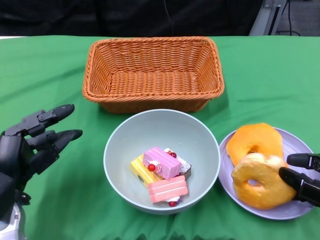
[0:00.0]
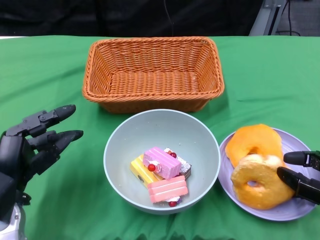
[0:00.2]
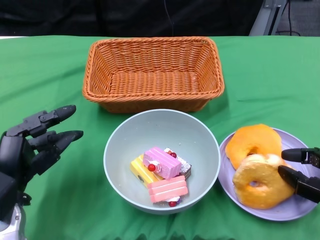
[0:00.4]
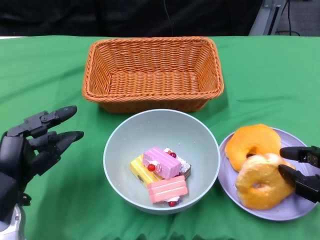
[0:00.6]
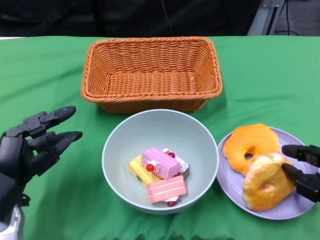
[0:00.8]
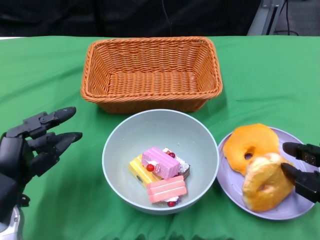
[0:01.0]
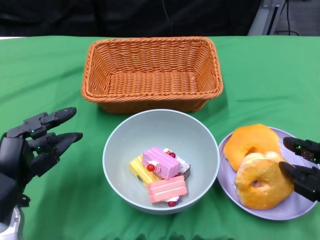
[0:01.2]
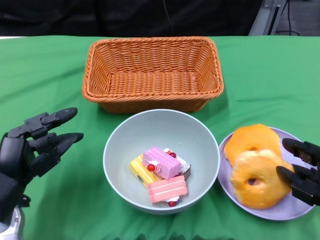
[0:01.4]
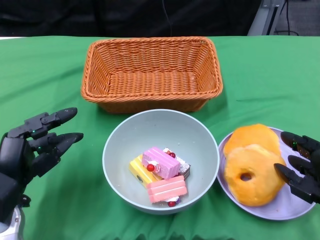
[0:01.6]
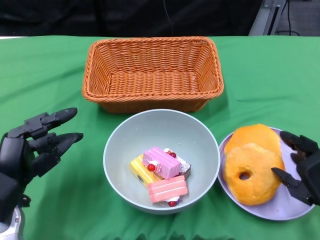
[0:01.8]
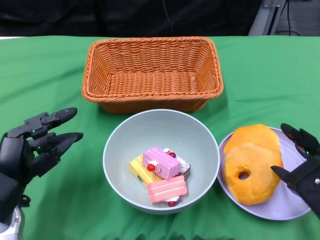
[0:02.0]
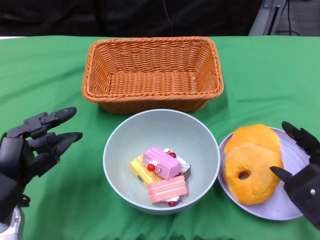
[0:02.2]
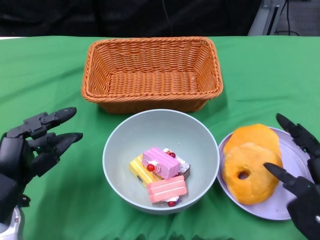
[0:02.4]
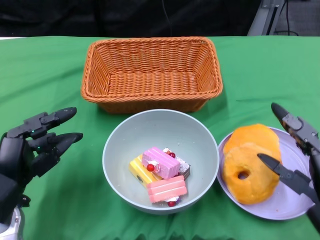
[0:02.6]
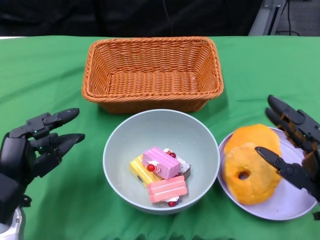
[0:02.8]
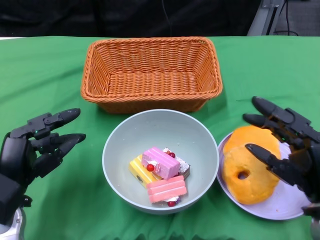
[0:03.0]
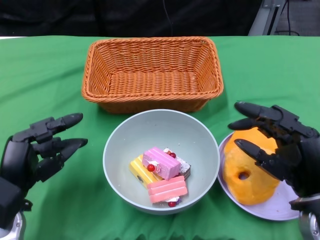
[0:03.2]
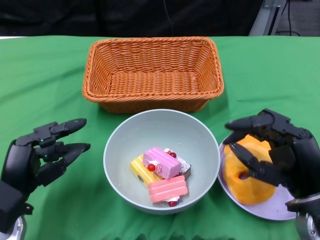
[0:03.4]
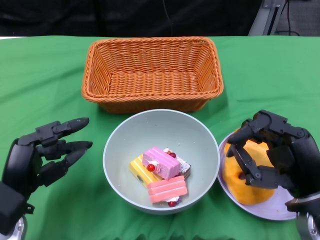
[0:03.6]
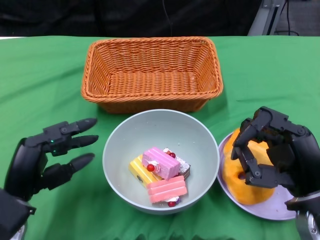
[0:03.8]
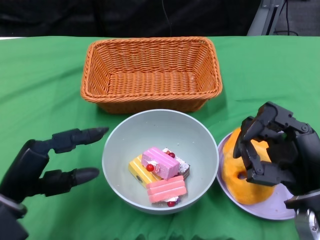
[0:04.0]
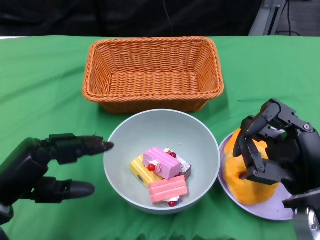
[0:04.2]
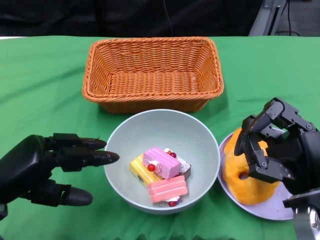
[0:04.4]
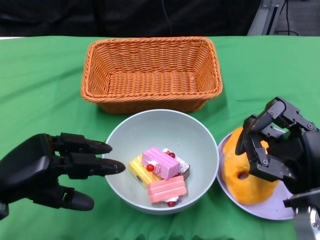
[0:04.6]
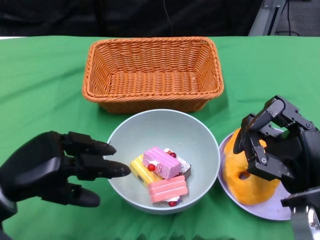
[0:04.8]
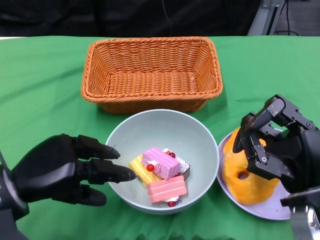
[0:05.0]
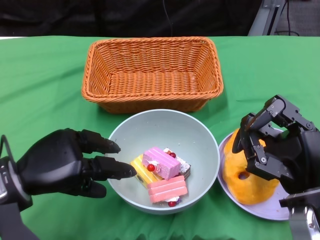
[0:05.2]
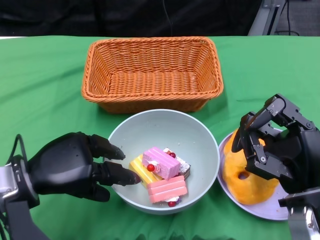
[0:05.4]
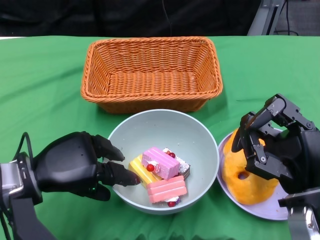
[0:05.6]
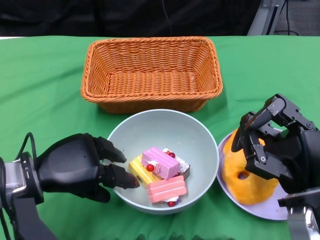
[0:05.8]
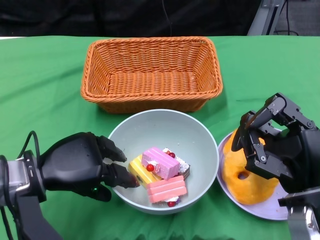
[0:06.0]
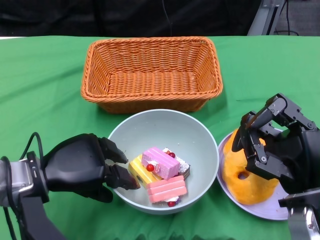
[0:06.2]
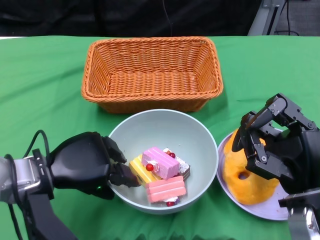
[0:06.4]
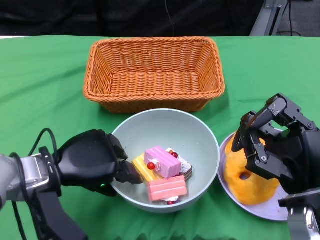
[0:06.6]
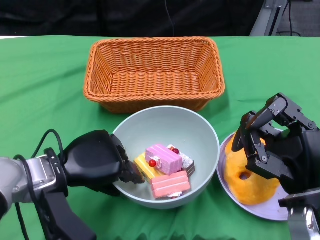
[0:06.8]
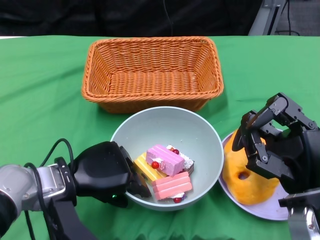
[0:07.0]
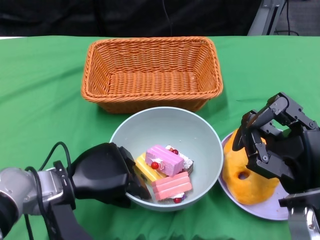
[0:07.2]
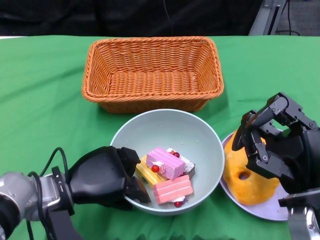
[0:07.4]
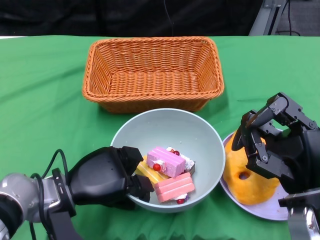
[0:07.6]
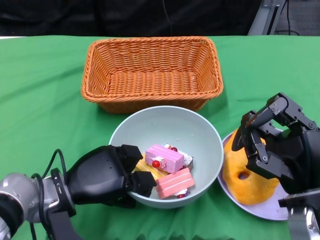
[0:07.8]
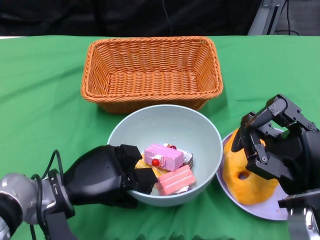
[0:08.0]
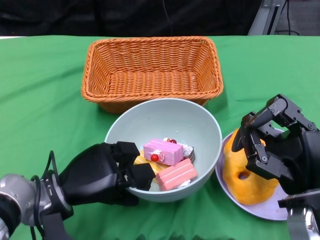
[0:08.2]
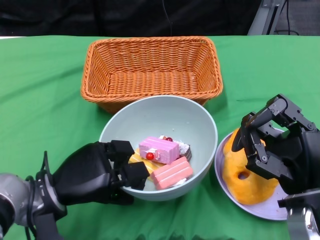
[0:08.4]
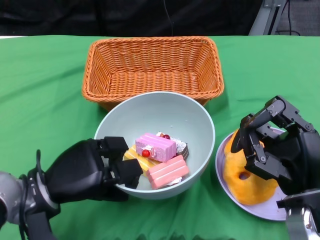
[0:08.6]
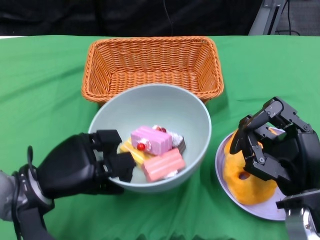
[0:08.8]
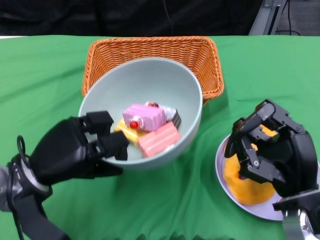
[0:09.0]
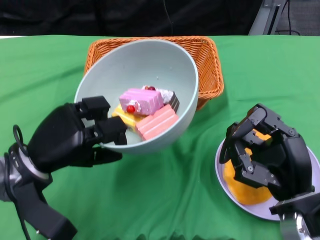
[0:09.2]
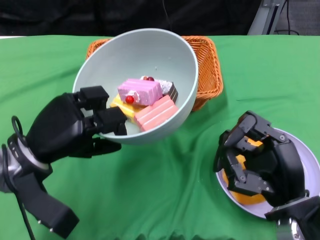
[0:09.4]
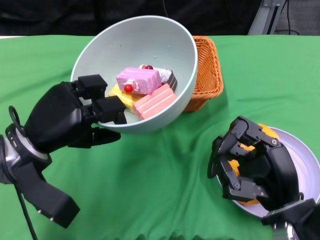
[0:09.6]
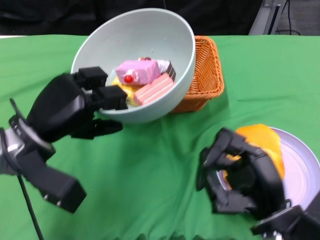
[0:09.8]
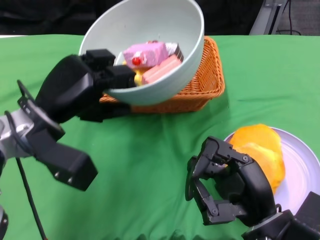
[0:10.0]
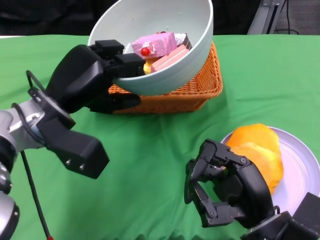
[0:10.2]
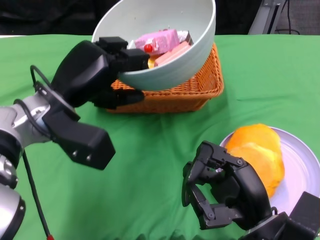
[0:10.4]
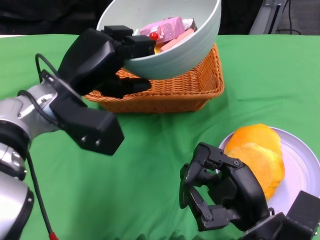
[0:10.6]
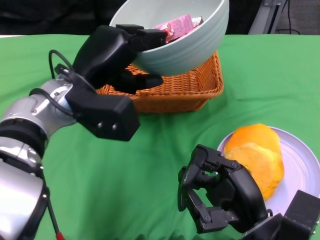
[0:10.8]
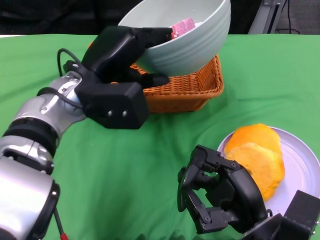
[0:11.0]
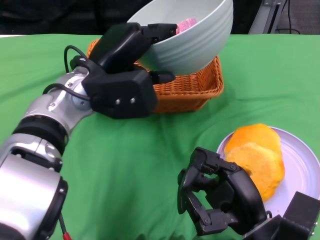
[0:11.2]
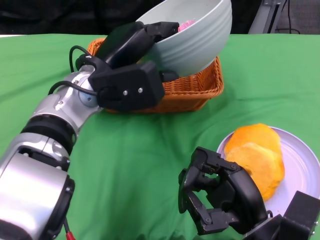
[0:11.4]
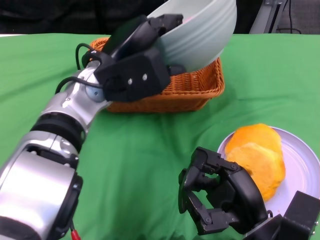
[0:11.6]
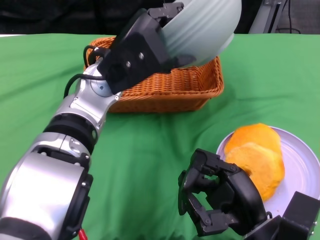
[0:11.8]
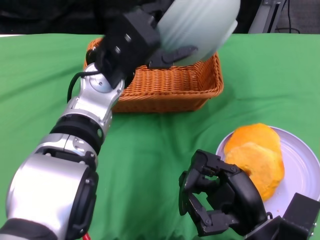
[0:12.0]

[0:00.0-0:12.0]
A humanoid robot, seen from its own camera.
Step, 0:00.0 to 0:02.2: Pick up the bread with the right gripper and place it on the plate.
Step, 0:02.4 to 0:07.4: Grasp the bowl with the left gripper.
0:03.0 to 0:04.4: The left hand ends up about 5 cm from where it was.
0:04.4 to 0:06.0: The left hand moves to the right, approximately 5 cm.
0:06.0 to 0:07.6: The left hand shifts by some 5 cm.
0:09.0 to 0:10.4: The right hand shifts by approximately 5 cm, while the left hand travels upward and forward by some 10 cm.
0:10.4 to 0:12.0: The left hand is displaced to the right by approximately 10 cm.

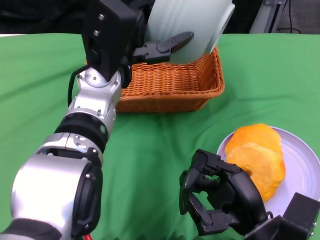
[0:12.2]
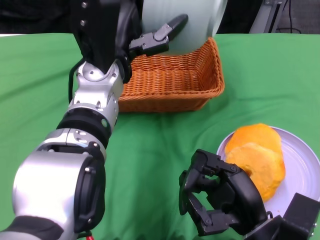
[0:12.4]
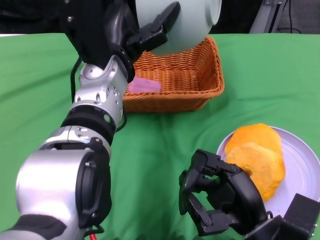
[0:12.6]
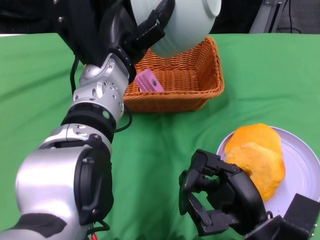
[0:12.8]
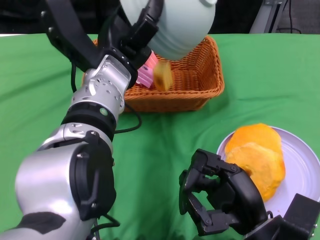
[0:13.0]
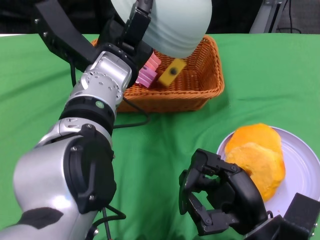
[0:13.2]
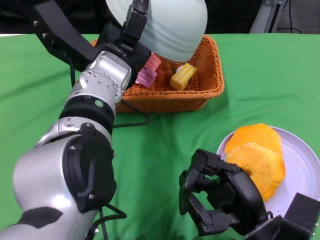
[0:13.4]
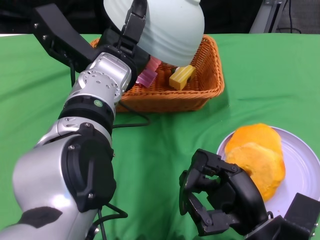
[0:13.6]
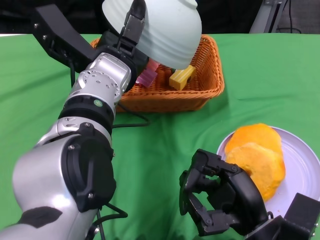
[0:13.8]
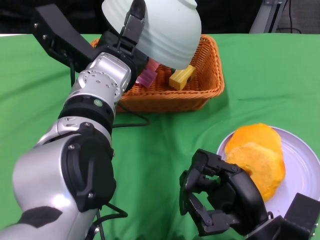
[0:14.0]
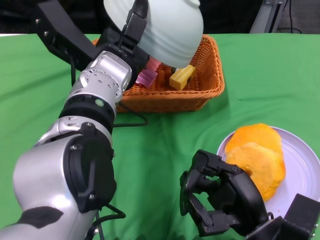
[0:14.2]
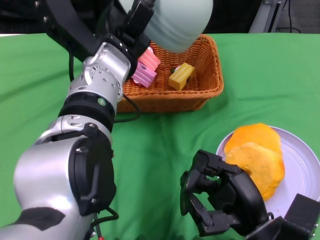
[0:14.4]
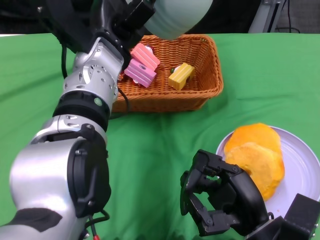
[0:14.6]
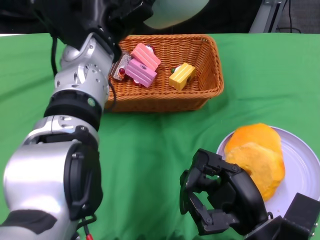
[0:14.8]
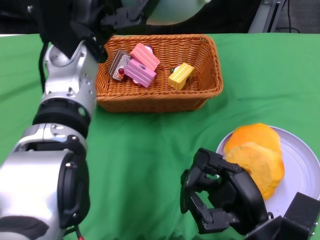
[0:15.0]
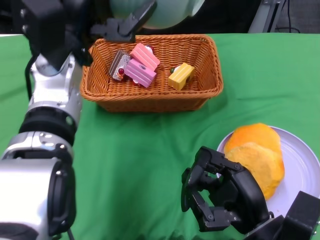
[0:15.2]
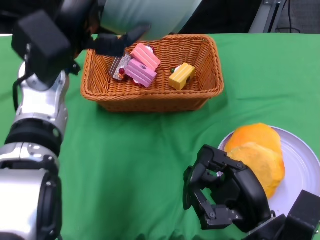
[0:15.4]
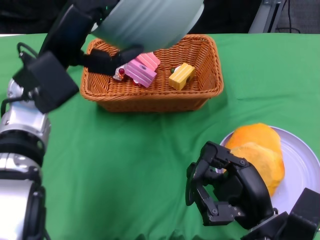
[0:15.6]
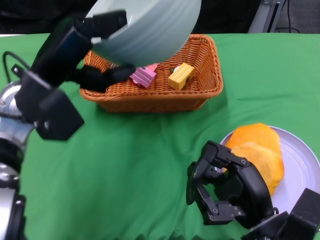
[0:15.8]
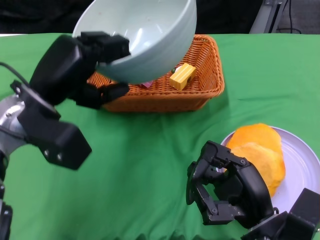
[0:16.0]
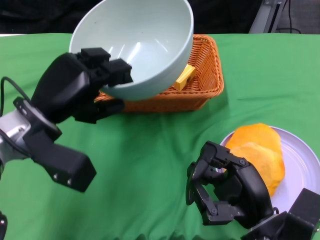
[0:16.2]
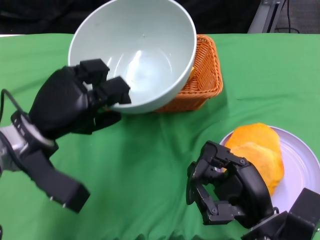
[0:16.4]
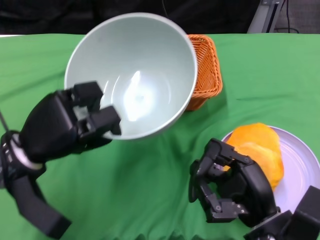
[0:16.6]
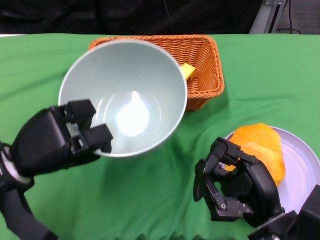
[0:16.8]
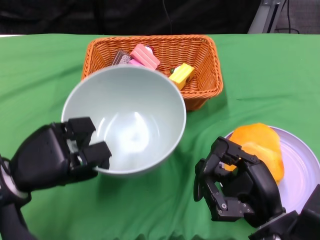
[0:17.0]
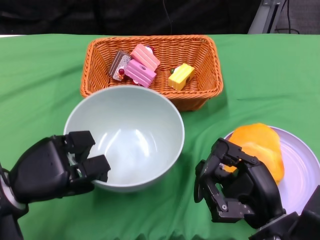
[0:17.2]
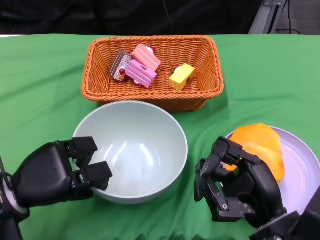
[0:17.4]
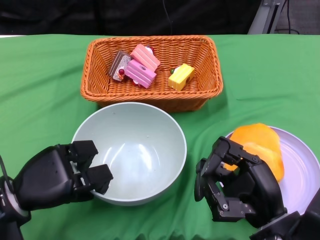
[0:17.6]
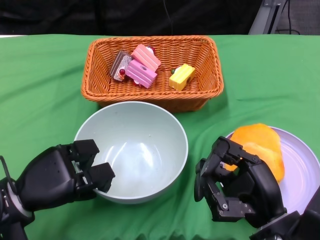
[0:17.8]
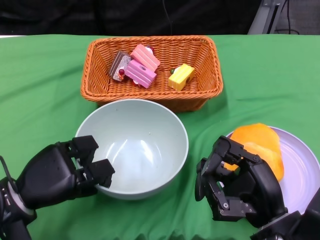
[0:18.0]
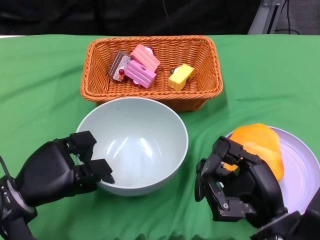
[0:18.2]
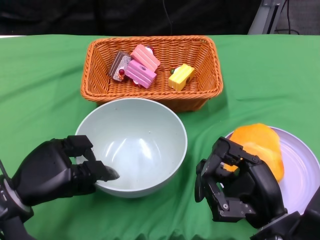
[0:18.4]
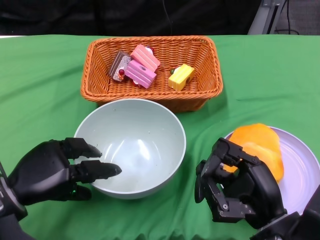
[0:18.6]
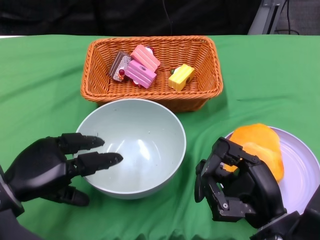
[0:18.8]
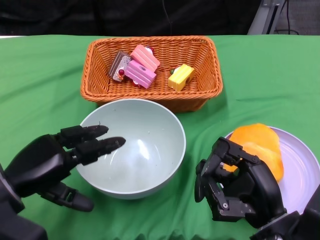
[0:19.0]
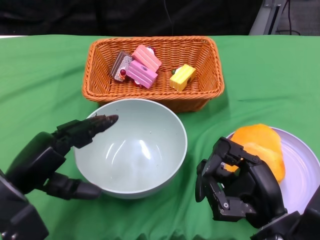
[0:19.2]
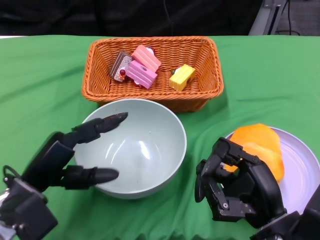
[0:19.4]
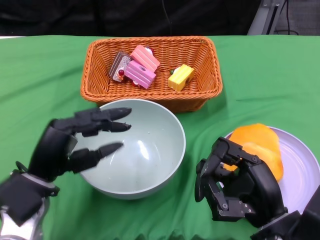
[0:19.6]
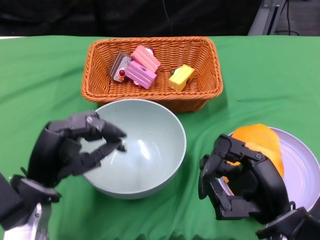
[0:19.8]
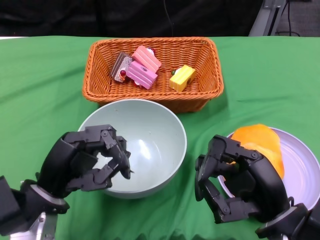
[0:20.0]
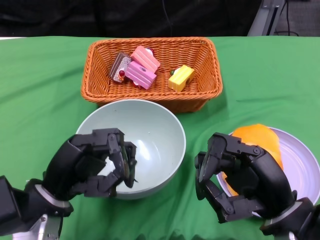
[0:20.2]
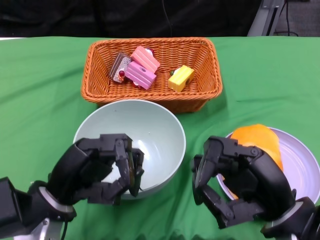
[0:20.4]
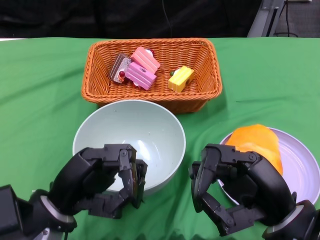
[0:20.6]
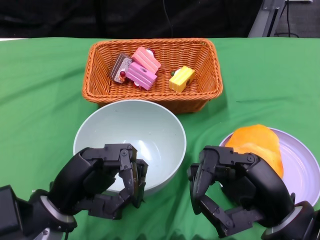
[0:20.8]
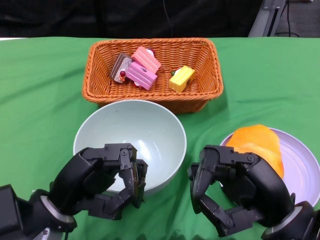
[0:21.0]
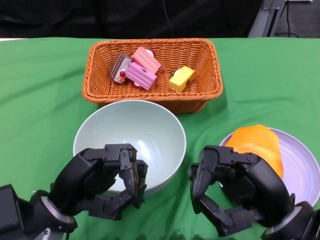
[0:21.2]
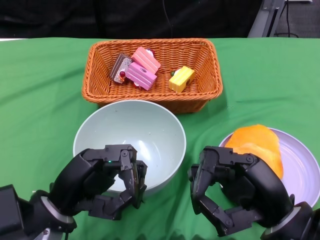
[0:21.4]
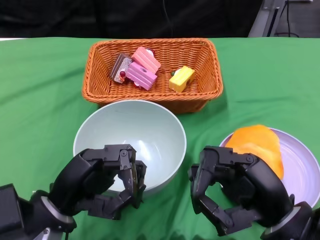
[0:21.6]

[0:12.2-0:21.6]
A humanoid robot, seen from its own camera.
Step, 0:12.2 to 0:14.2: Pour the cake into the basket with the left gripper.
Step, 0:14.4 to 0:18.6: Place the bowl on the table with the left gripper.
0:13.8 to 0:15.4: The left hand moves to the left, approximately 5 cm.
0:15.4 to 0:17.0: The left hand heads downward, to the left and backward, covering approximately 20 cm.
0:18.4 to 0:20.0: The left hand changes place by roughly 5 cm.
